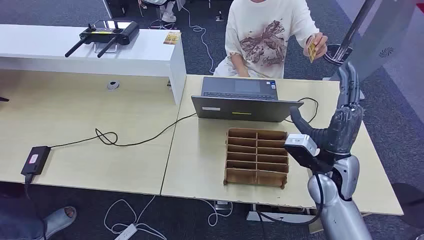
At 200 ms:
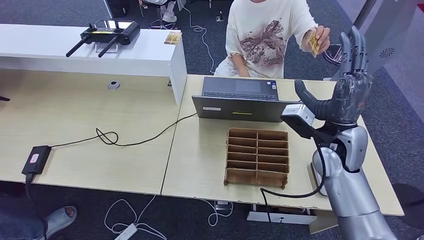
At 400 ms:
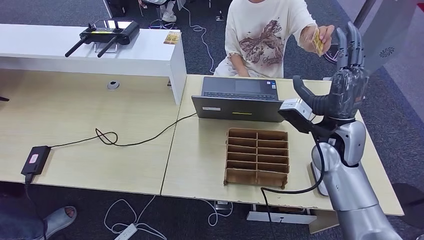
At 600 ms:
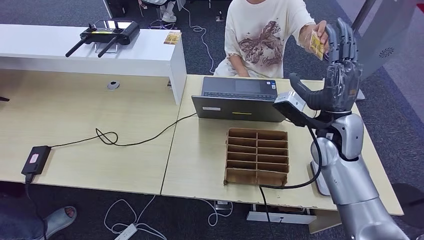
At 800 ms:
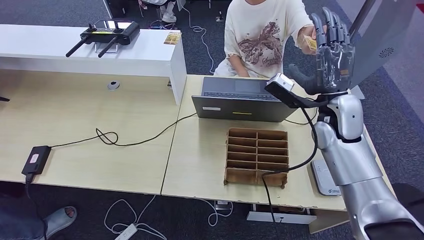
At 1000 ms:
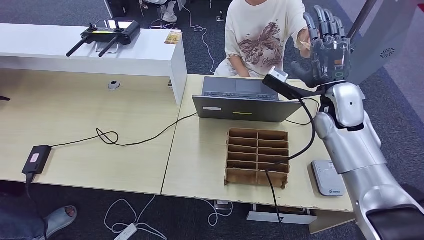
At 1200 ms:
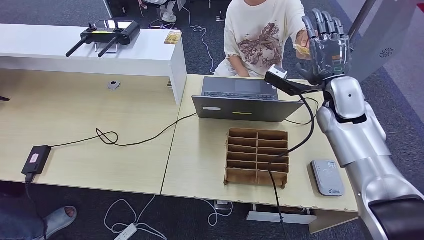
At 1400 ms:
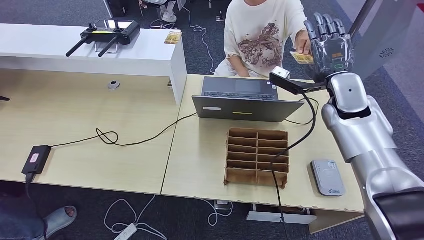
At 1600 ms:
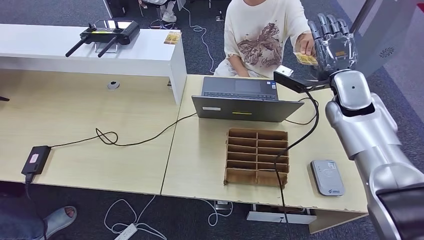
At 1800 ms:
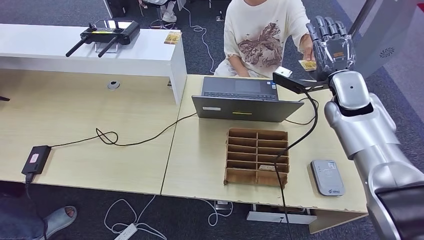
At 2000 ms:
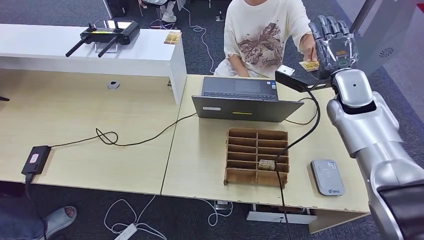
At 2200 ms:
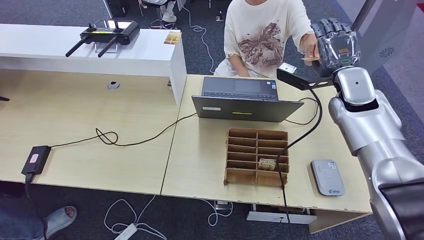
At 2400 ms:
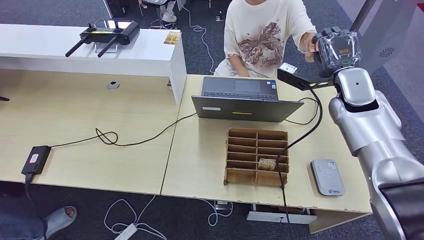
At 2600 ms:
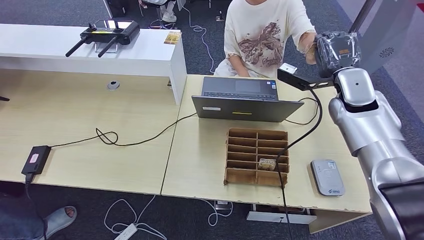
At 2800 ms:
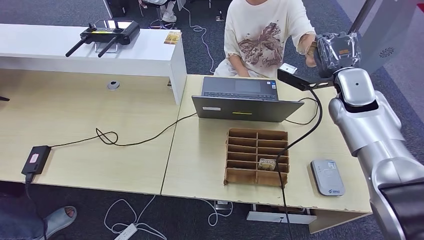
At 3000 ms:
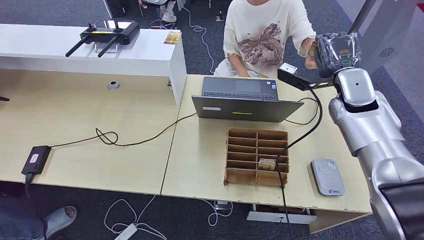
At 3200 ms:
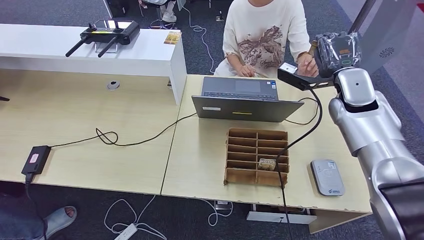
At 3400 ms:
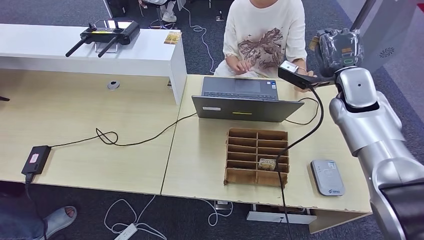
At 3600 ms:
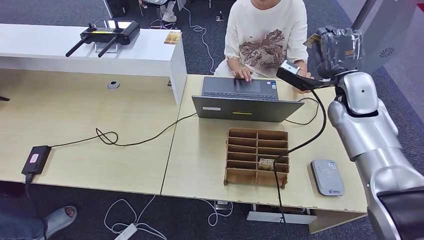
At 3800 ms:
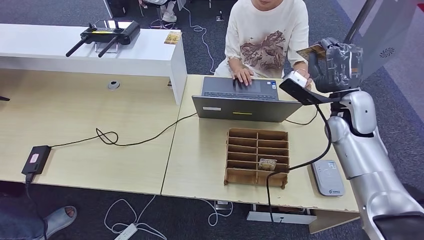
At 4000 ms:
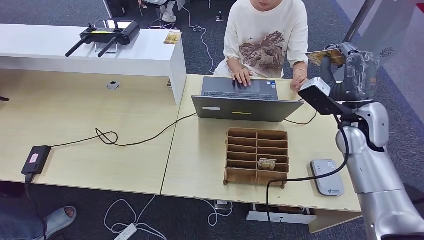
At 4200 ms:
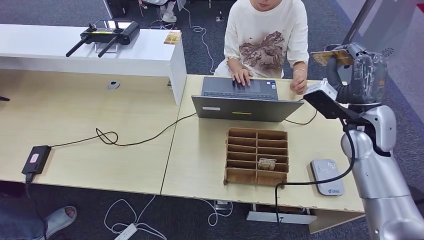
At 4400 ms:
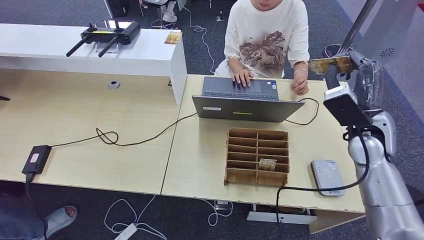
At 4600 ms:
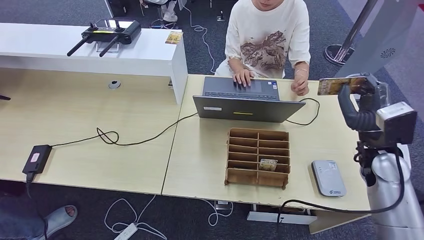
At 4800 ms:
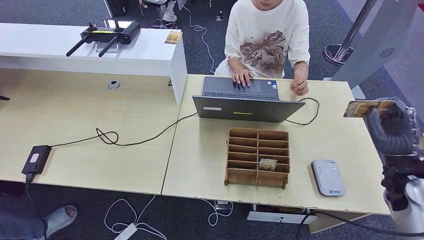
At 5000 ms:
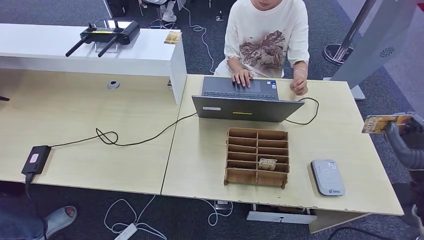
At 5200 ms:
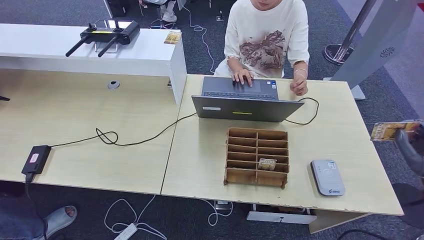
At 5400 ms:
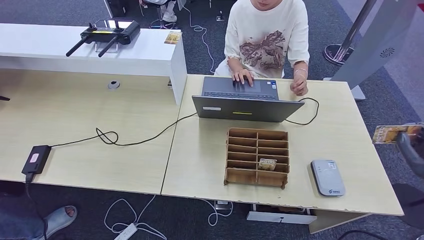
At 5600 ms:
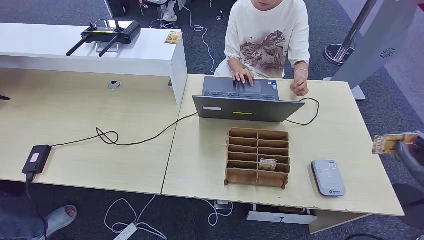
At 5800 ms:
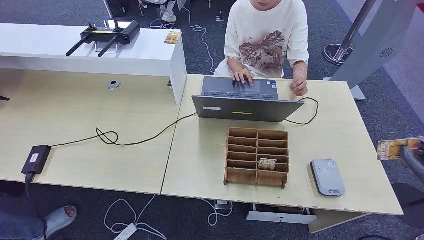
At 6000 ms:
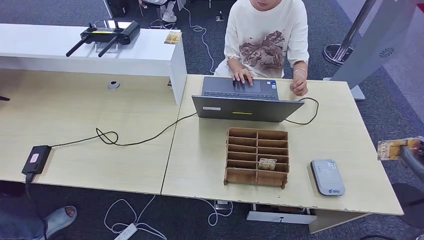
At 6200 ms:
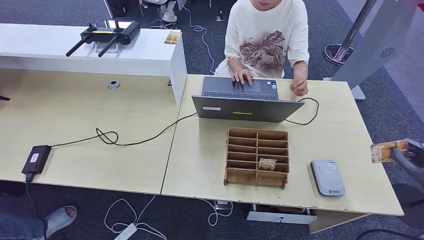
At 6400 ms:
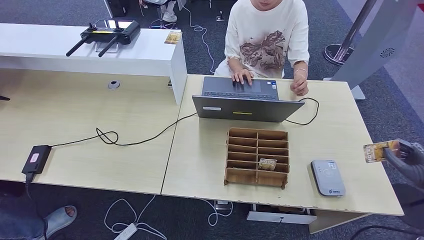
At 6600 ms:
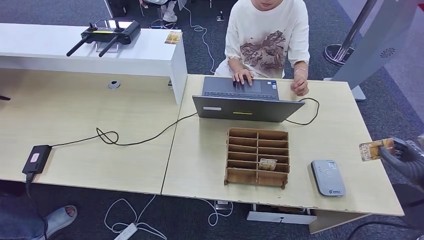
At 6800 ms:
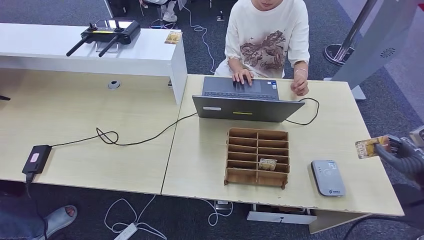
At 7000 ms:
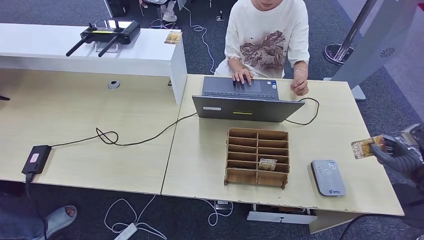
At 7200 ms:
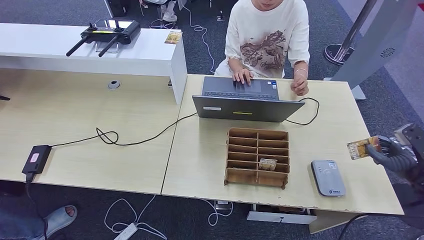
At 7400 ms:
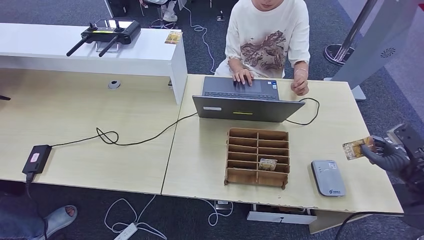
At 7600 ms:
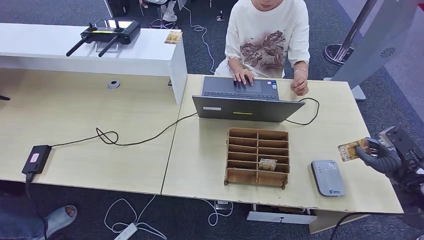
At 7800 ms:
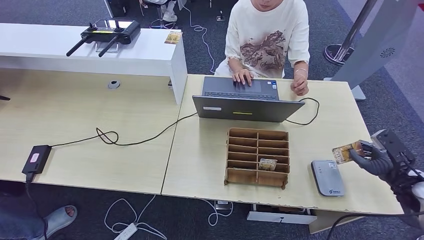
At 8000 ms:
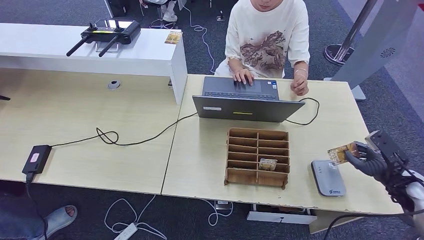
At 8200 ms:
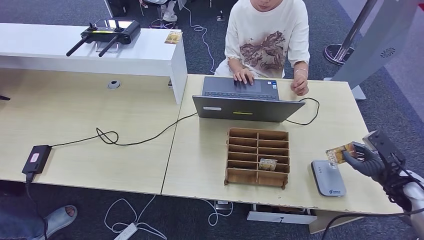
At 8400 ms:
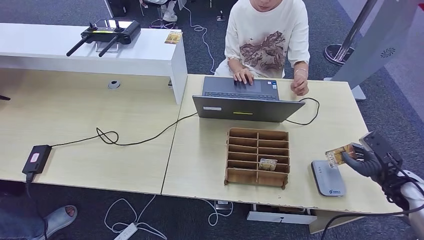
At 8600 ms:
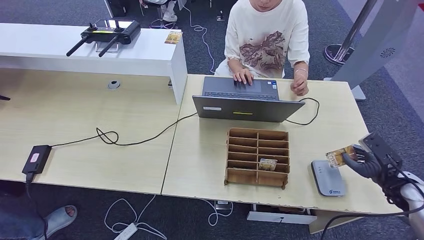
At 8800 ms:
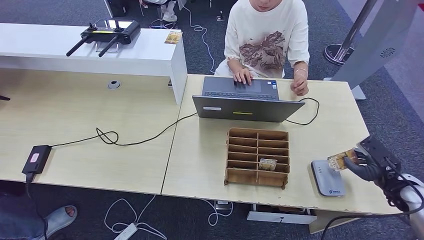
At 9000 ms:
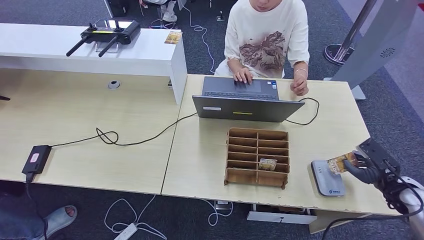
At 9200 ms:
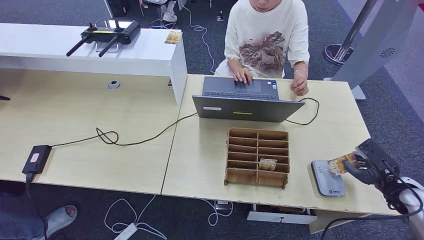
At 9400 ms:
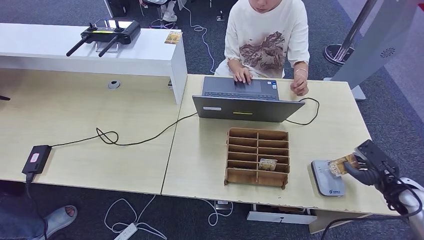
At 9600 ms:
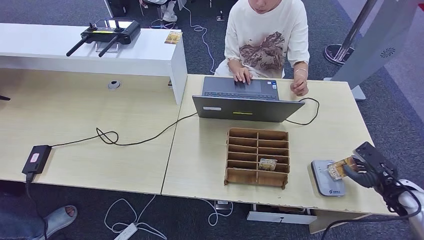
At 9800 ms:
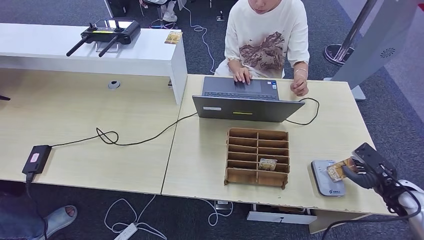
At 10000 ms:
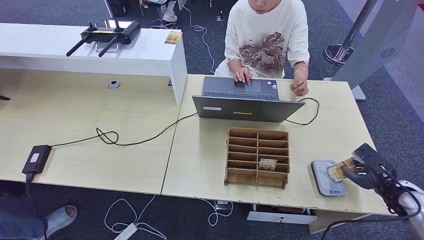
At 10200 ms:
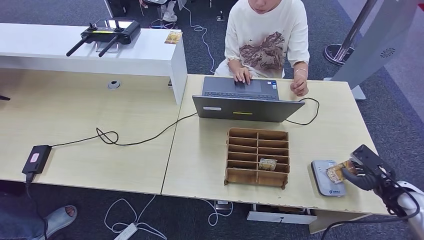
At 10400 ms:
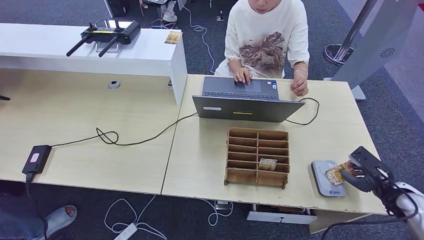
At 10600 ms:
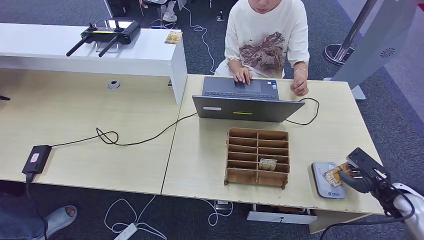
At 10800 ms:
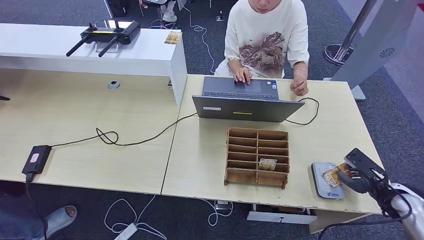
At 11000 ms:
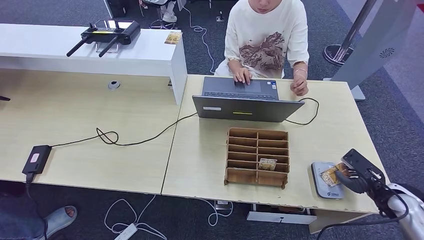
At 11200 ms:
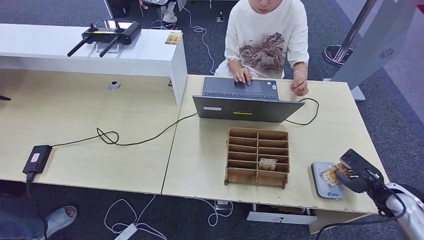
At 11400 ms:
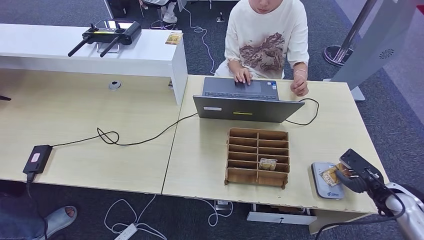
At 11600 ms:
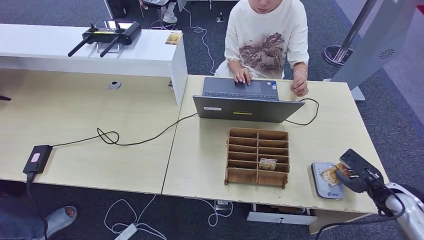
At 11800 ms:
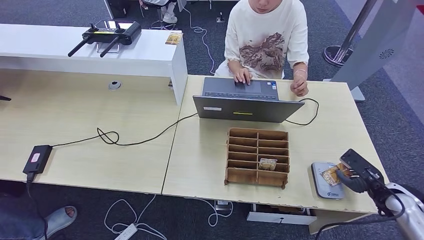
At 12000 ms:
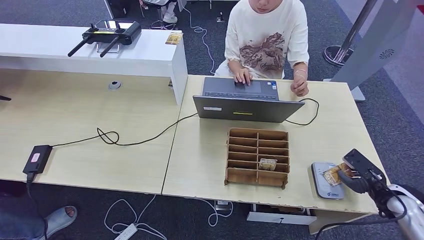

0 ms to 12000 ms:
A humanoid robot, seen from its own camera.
Step, 0 ms to 4600 ms: Take the ID card from the person's hand.
1600 ms to 3000 ms: The hands stay close to where they were, moving slightly.
3000 ms to 4400 ms: The right hand moves backward, approximately 10 cm.
4400 ms to 6000 ms: The right hand is displaced to the right and backward by approximately 25 cm.
6000 ms to 7600 ms: The right hand moves forward and downward, about 10 cm.
7600 ms to 10400 ms: There are only small adjustments of the hands.
10400 ms to 12000 ms: The hands stay close to where they were, moving slightly.

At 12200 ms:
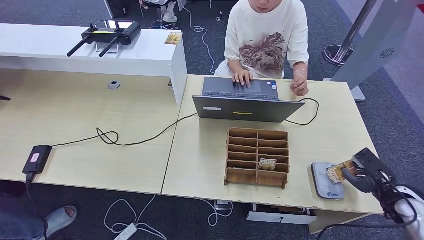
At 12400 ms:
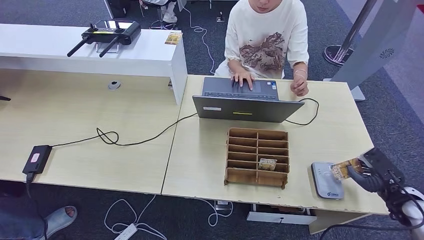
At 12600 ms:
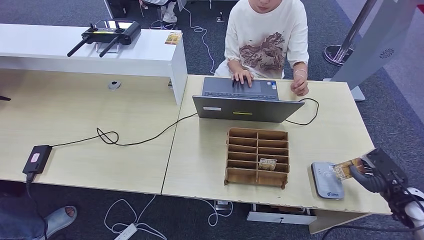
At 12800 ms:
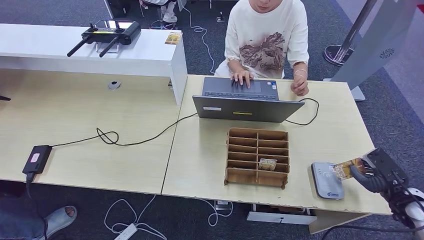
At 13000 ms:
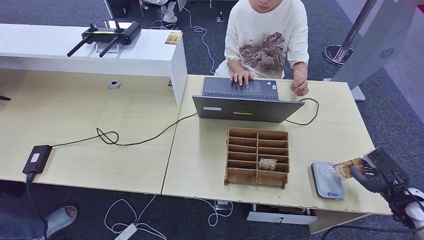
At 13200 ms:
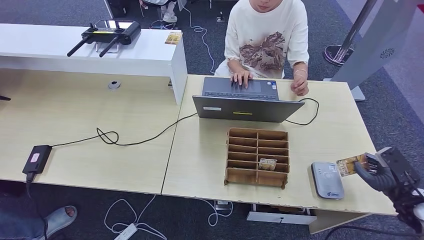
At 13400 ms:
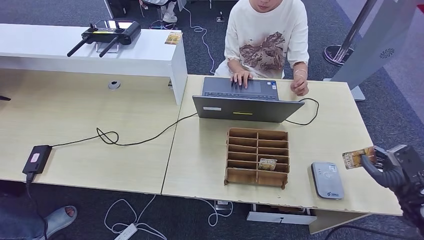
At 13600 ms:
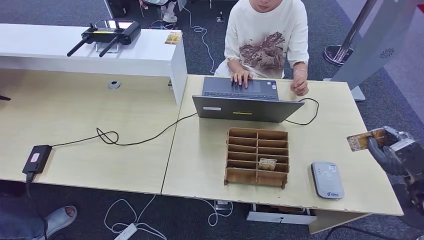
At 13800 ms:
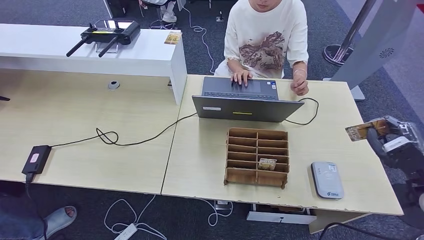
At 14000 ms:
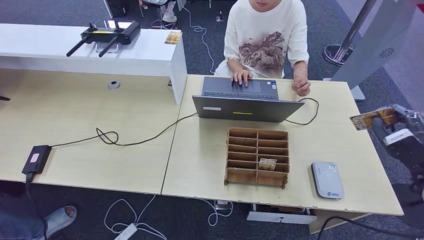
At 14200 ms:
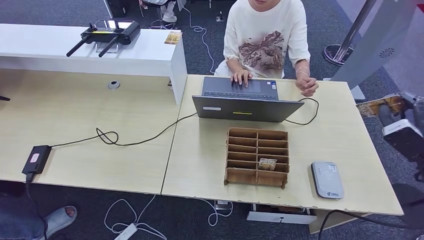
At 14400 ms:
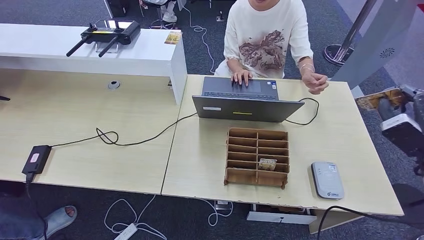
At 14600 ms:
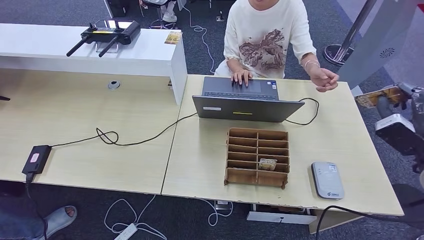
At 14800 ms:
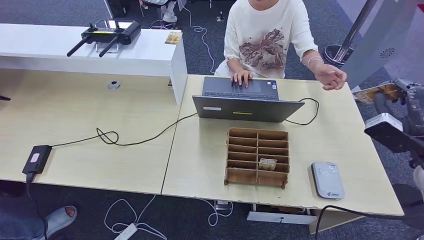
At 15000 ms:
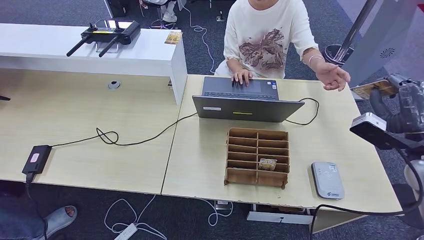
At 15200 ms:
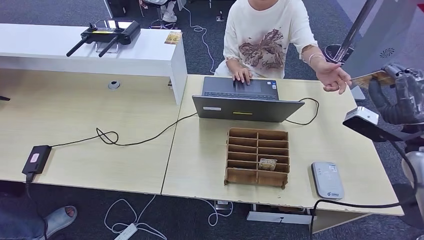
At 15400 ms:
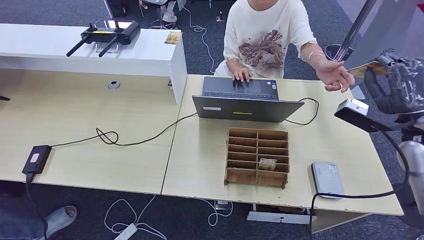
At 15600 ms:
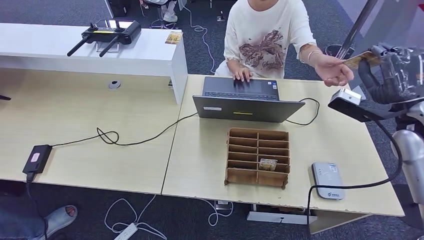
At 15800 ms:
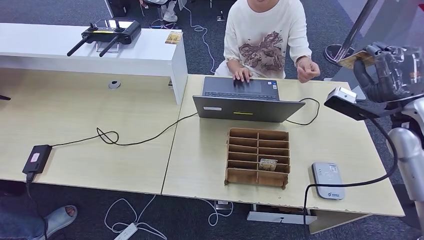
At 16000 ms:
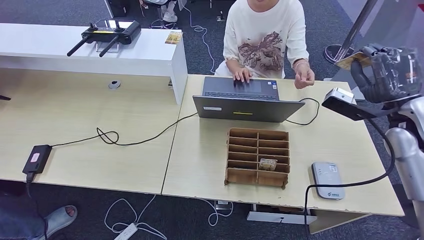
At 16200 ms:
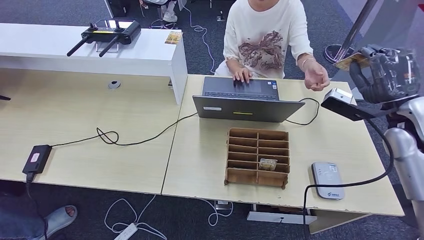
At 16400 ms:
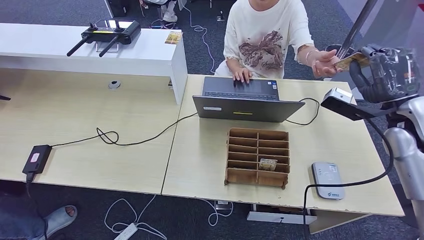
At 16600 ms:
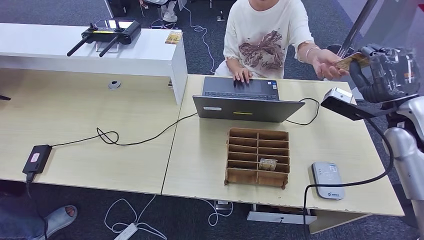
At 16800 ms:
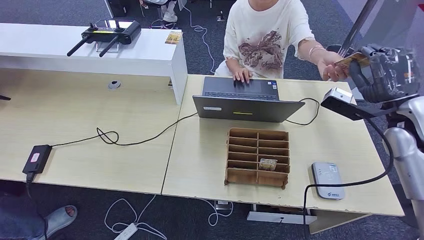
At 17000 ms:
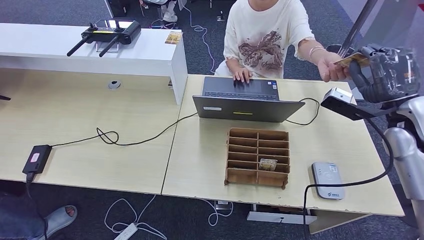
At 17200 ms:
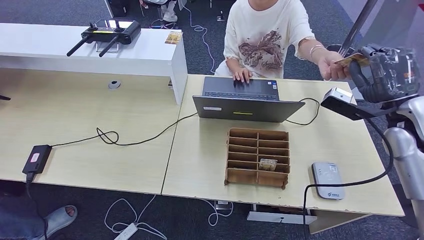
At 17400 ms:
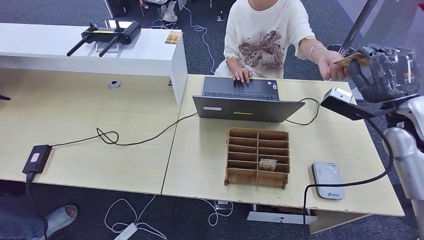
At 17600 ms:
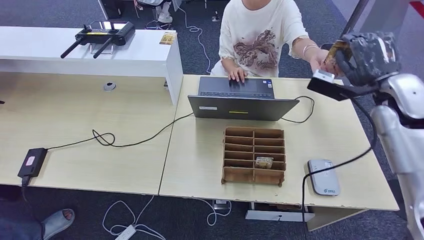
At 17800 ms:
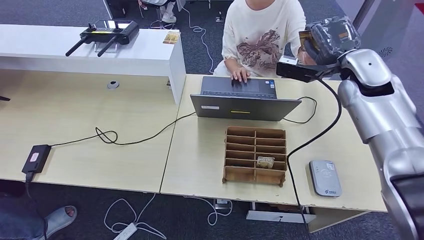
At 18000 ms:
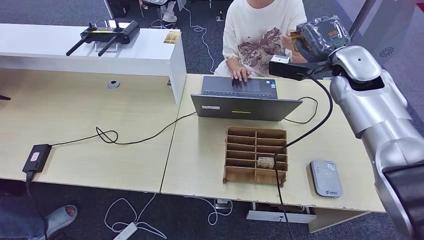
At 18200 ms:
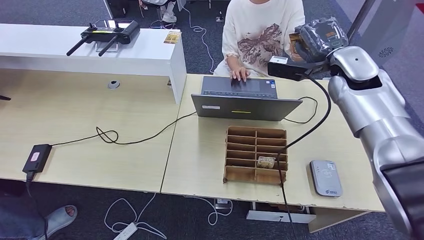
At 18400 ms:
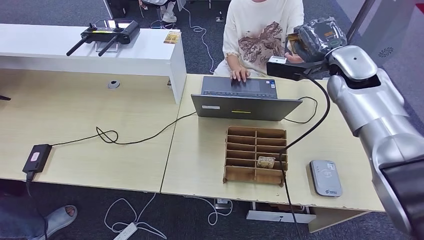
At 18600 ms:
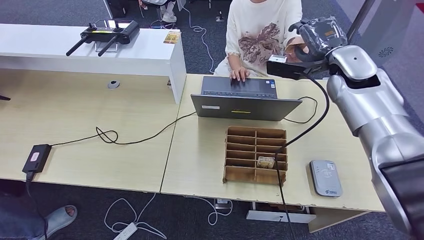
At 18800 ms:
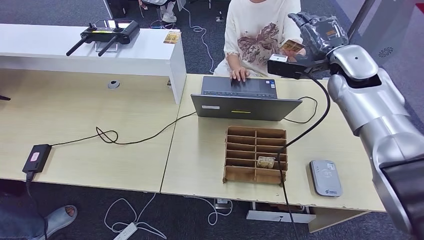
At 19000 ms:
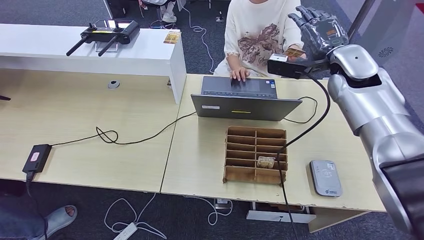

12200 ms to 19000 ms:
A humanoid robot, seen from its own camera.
12200 ms to 13600 ms: The right hand moves upward, roughly 10 cm.
13600 ms to 15000 ms: The right hand shifts about 10 cm upward and to the left.
15000 ms to 16200 ms: The right hand shifts some 5 cm forward.
